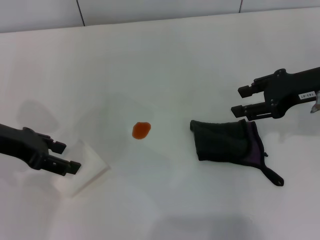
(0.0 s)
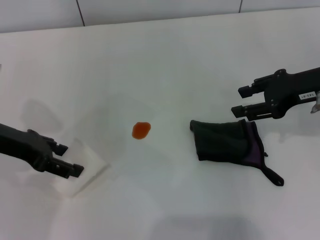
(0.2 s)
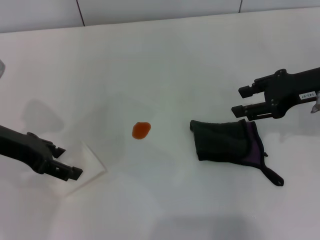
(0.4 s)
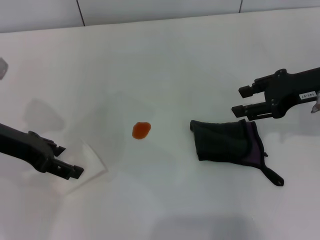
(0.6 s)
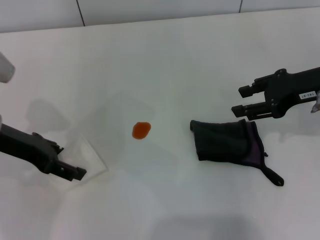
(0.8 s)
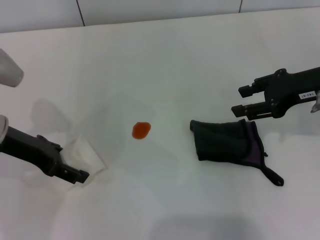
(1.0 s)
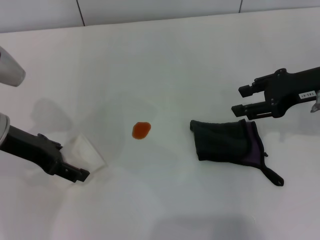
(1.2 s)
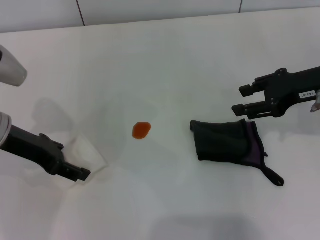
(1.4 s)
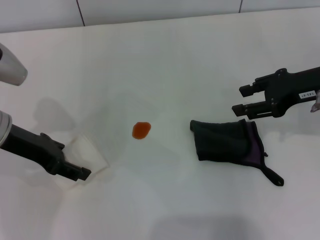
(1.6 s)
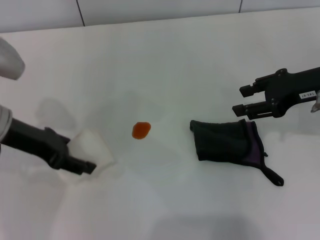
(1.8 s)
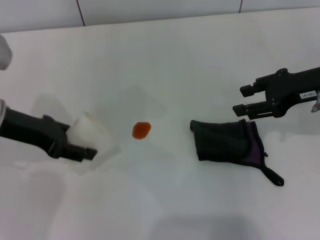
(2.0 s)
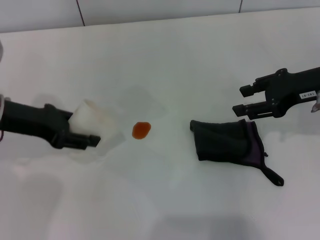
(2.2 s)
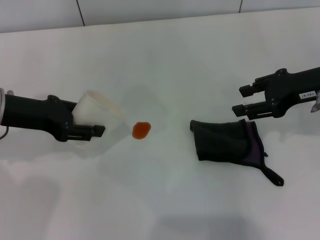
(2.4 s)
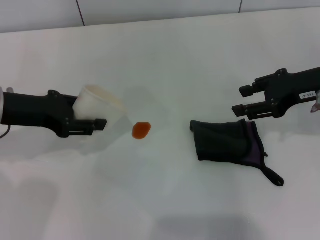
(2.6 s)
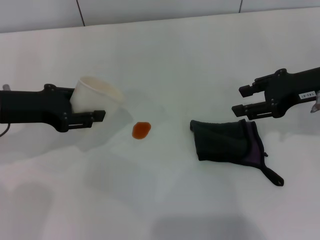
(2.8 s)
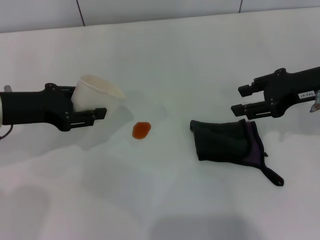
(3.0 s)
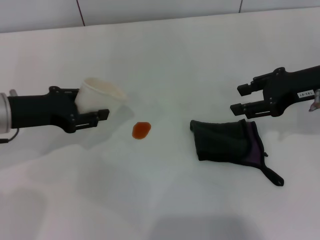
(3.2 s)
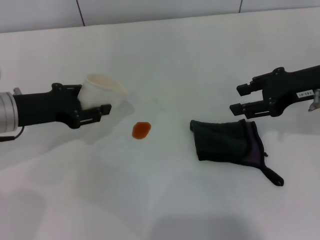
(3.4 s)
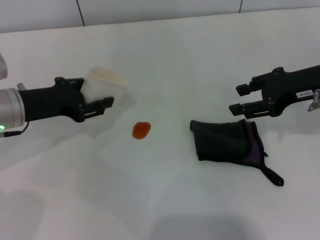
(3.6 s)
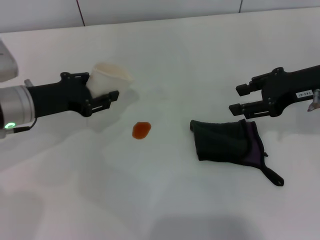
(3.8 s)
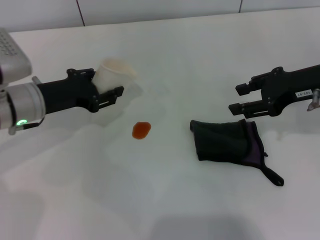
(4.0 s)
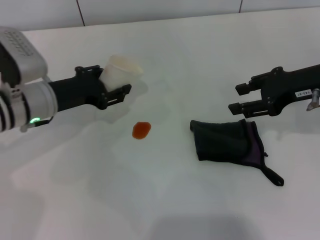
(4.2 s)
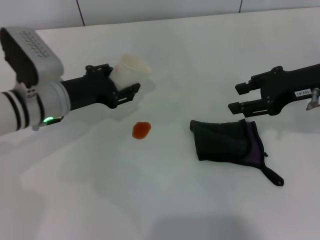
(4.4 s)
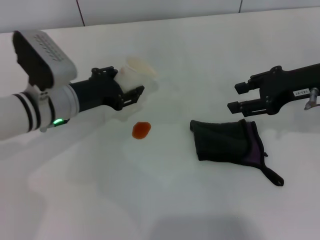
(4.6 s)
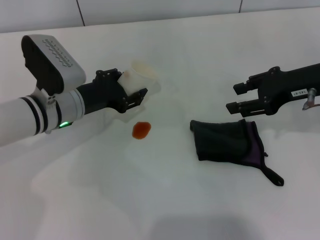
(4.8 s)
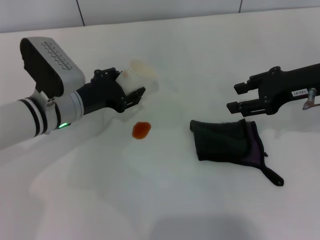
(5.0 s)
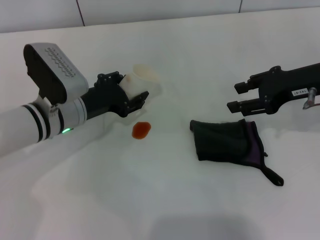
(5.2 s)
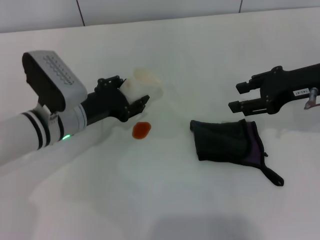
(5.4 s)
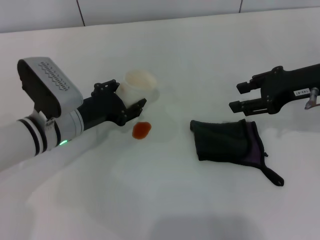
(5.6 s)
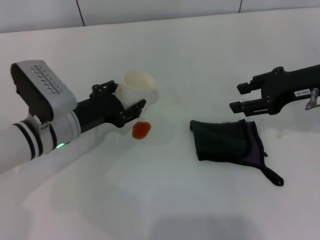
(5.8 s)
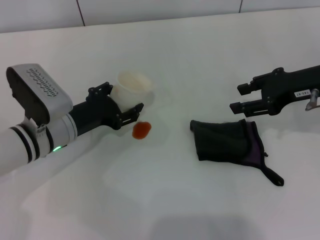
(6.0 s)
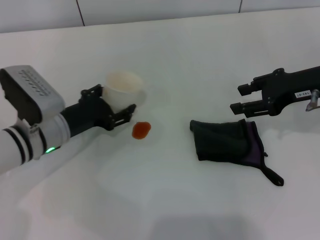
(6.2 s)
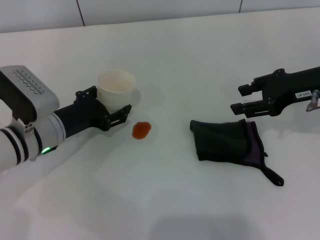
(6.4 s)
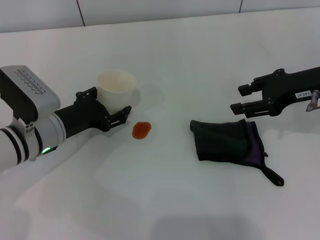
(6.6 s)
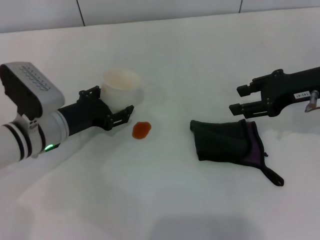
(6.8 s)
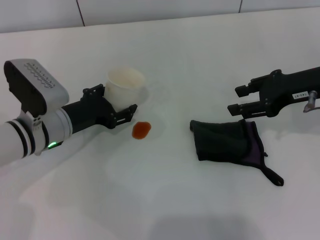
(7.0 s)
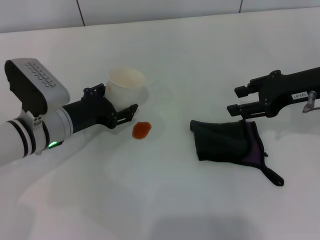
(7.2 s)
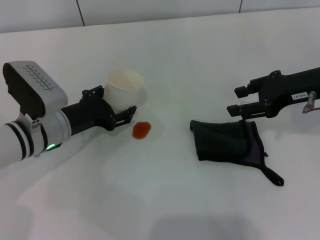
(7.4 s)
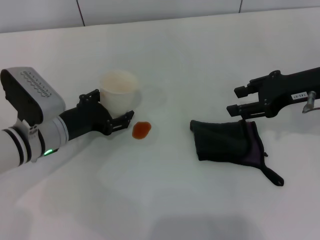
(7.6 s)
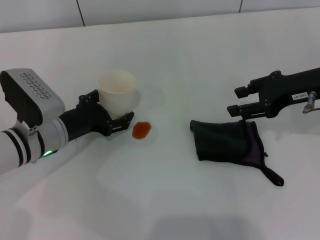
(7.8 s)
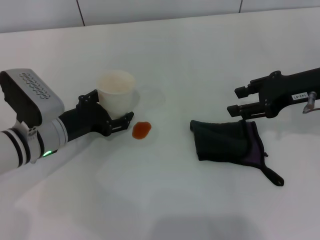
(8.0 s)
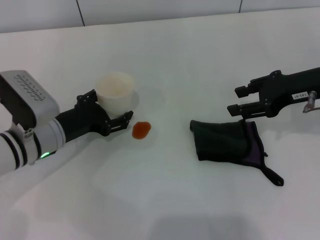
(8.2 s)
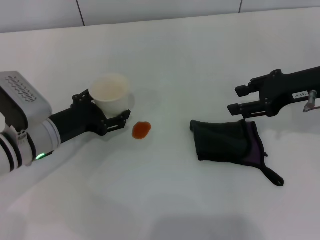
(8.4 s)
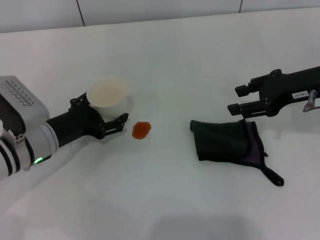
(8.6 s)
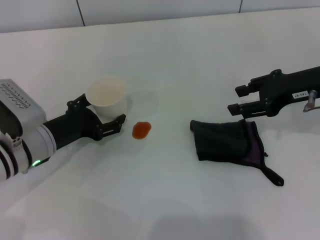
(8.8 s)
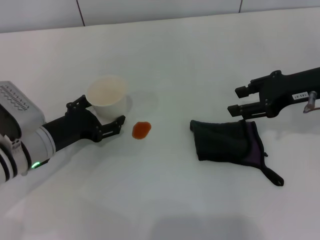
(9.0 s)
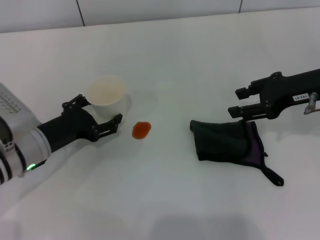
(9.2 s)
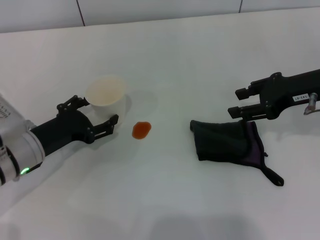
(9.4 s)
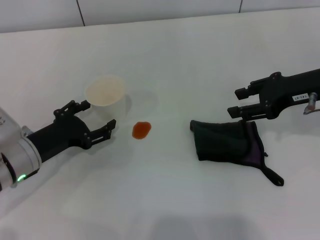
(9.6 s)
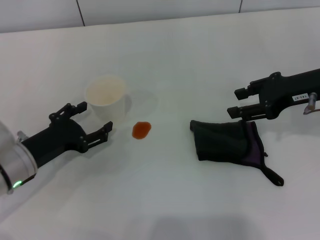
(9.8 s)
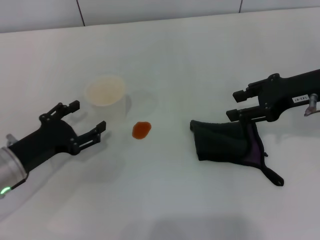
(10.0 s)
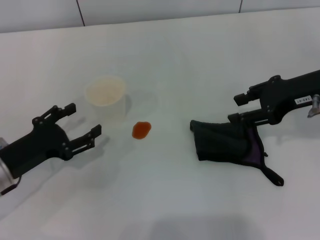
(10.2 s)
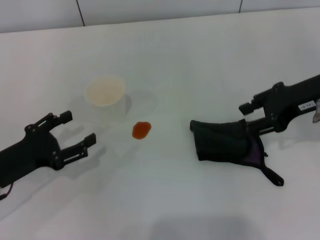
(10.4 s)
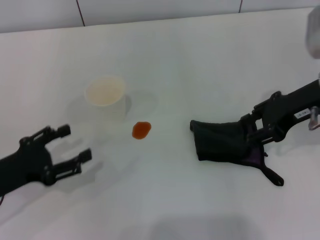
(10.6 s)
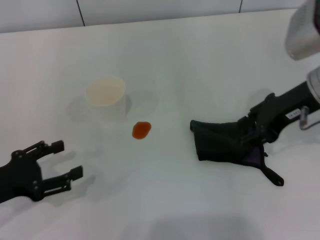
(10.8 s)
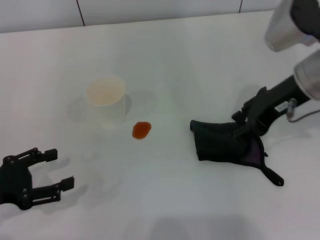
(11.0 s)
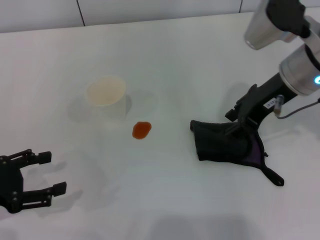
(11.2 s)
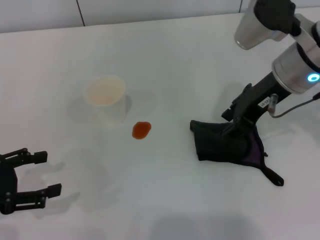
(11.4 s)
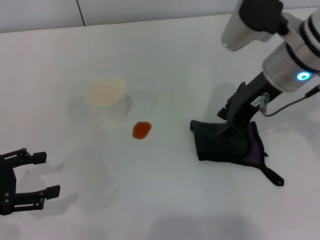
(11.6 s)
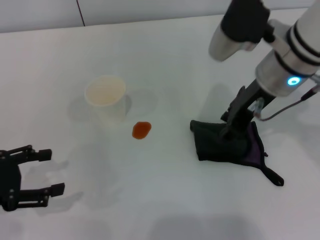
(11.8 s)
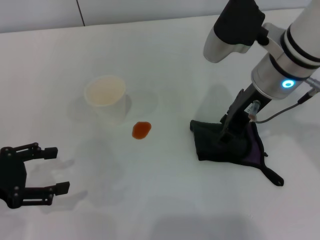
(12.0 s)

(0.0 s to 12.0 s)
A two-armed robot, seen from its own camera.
Step, 1.4 s - 10.0 s: Stand the paper cup upright with the left gripper.
0.0 s - 1.6 s: The grippers stay close to where they were, moving slightly.
1.6 s - 3.0 s: The left gripper closes its fingers.
3.0 s - 4.4 s: The left gripper goes about 10 cm to the right and downward.
4.4 s - 7.6 s: There are only small adjustments of the grippers.
7.6 s - 9.0 s: There are only small adjustments of the grippers.
9.0 s - 10.4 s: The left gripper moves to the left and backward, roughly 10 cm.
10.4 s - 12.0 s: The left gripper is displaced upward by some 5 cm; the right gripper heads to the left, covering approximately 10 cm.

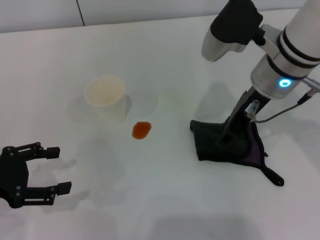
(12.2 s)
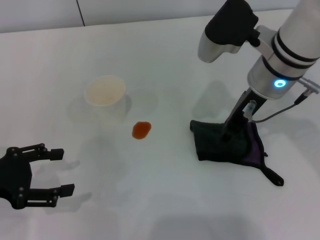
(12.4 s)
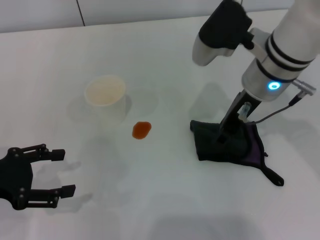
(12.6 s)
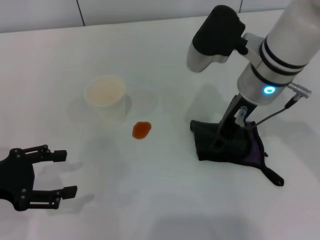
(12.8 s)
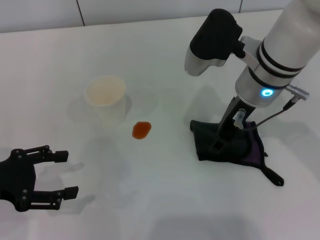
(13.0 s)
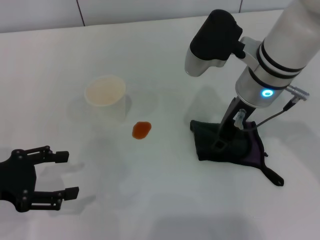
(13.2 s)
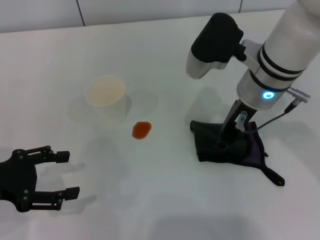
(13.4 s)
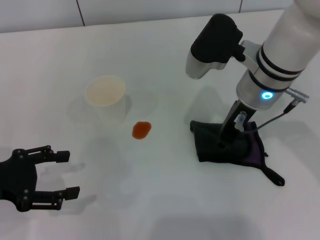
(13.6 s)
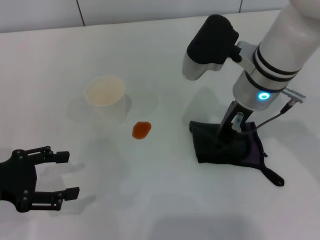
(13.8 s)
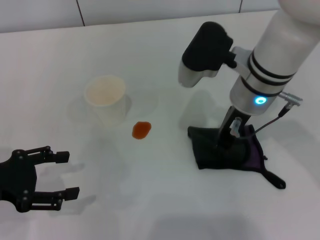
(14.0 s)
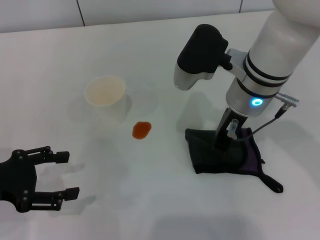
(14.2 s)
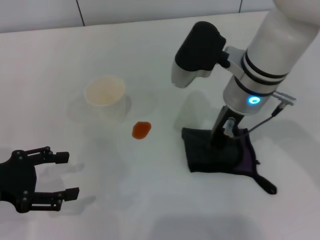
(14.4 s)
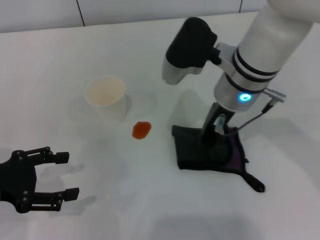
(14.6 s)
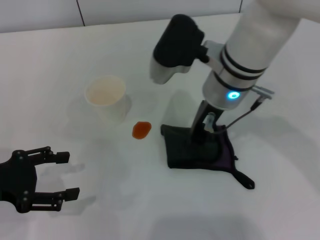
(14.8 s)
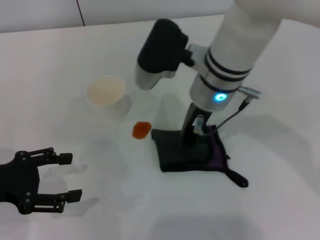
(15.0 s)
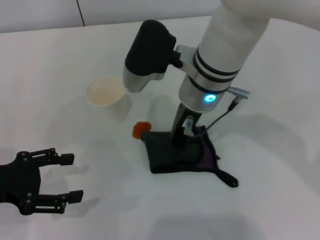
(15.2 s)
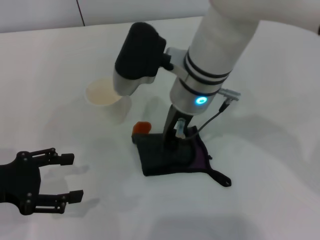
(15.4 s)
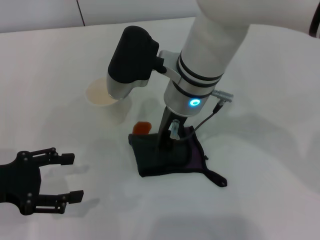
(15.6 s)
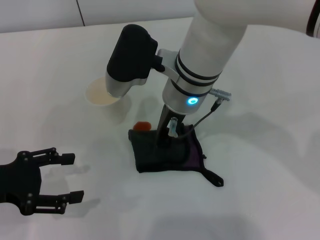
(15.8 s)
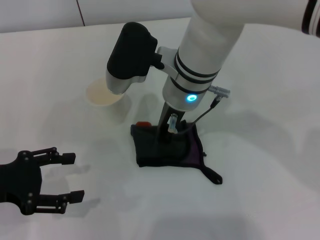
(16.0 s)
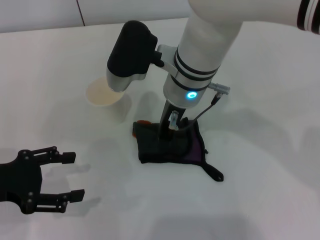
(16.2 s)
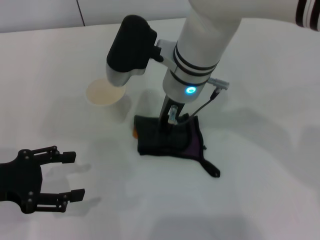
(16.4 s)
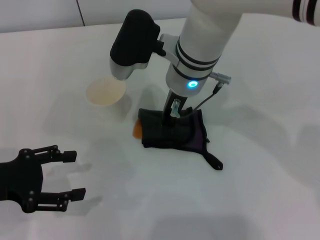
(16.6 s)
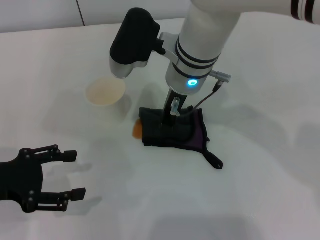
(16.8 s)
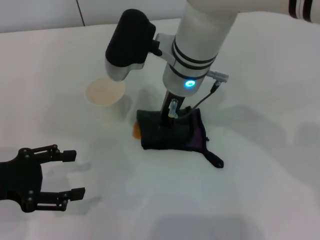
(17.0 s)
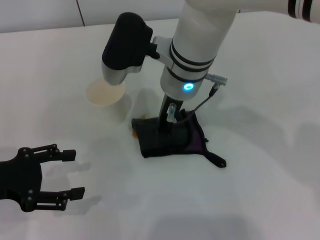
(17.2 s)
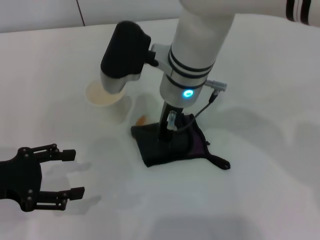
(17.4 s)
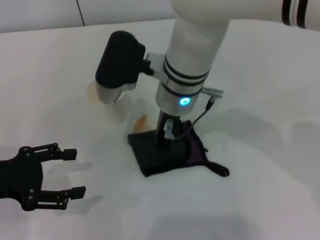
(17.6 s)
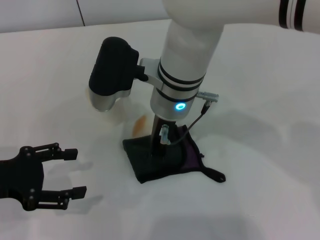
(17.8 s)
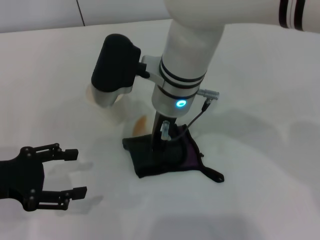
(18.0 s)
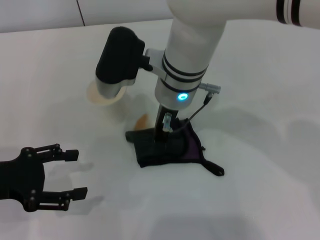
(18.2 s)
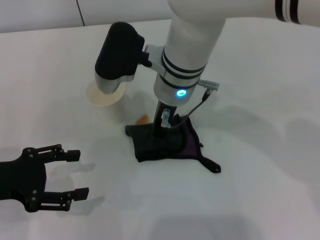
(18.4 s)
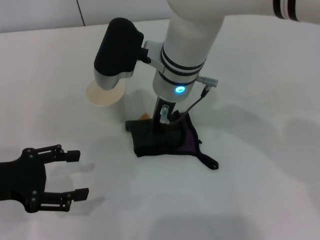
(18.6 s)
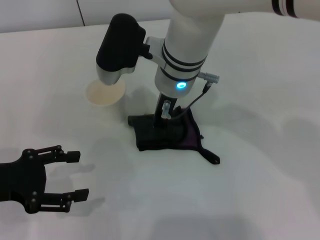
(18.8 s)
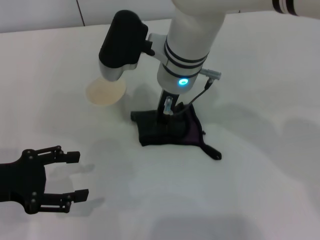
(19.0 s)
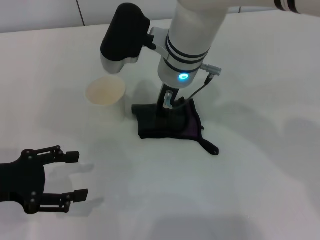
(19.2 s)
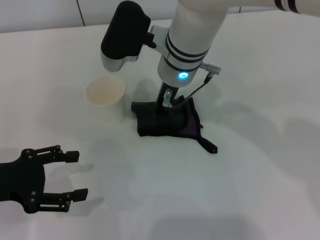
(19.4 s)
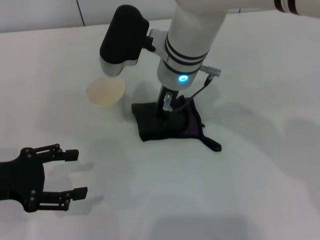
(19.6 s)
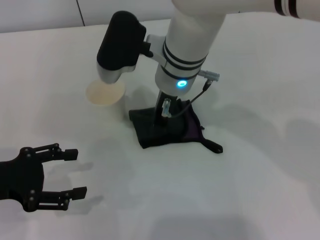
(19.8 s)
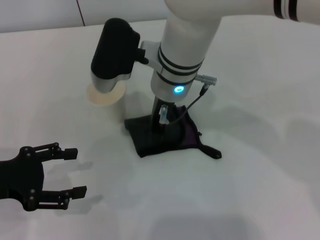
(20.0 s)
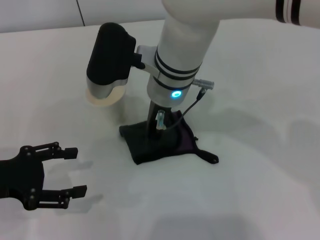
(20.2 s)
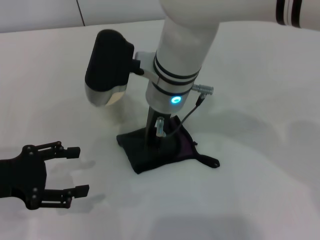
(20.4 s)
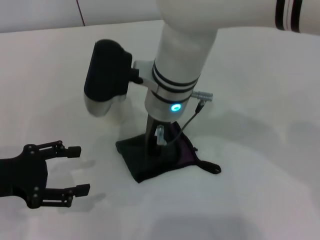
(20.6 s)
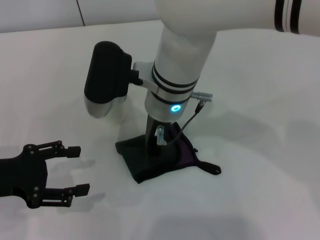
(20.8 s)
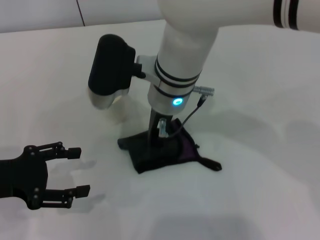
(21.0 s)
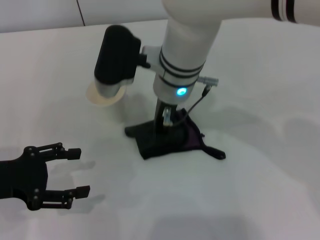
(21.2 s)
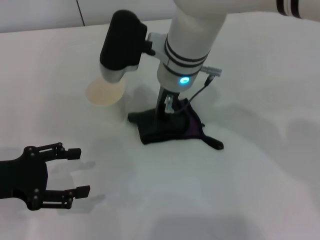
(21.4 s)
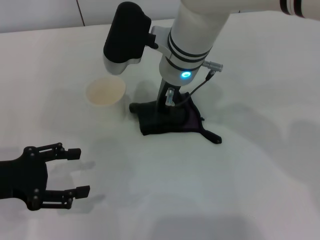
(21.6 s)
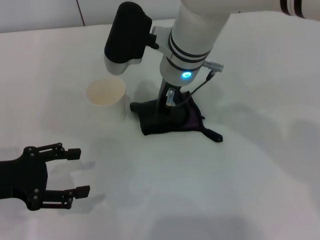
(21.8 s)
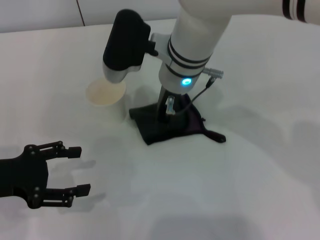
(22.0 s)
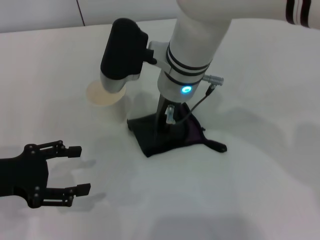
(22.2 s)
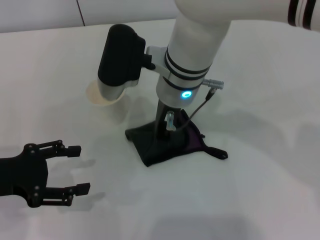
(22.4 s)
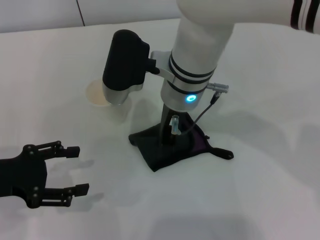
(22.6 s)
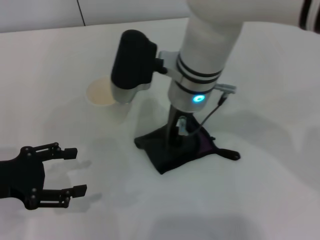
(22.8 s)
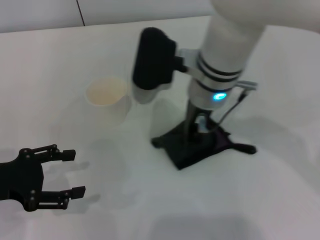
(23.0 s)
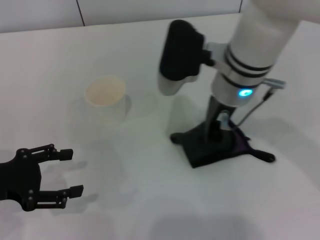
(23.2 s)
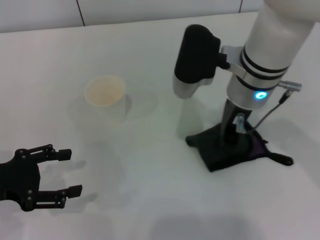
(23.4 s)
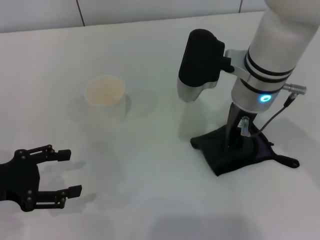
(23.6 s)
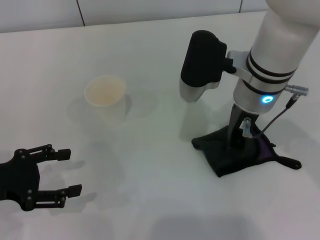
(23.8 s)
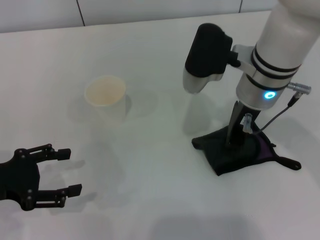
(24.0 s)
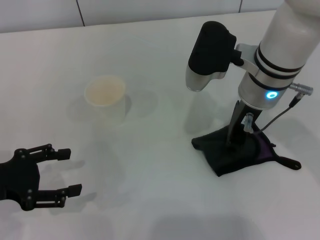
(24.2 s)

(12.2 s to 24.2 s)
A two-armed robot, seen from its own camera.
Step, 13.6 s - 22.4 s: Wipe the stains off the table with the right gripper.
12.2 s - 13.8 s: The right gripper closes its fingers.
13.8 s - 15.2 s: The right gripper shifts roughly 10 cm to the left, and closes its fingers.
15.2 s - 22.6 s: The grippers make only small movements.
22.6 s - 24.2 s: The right gripper is displaced to the right by roughly 10 cm.
